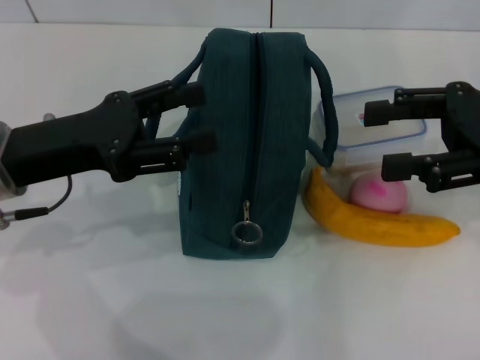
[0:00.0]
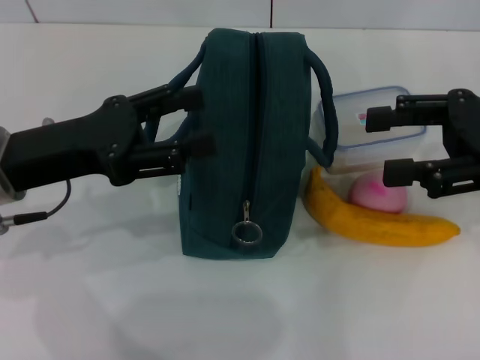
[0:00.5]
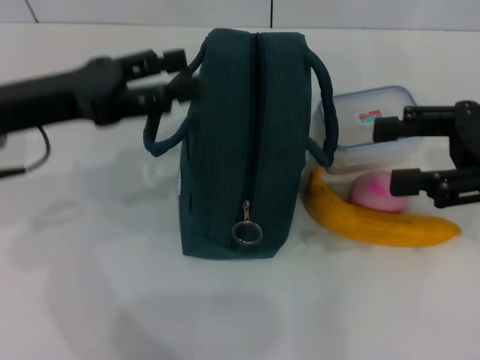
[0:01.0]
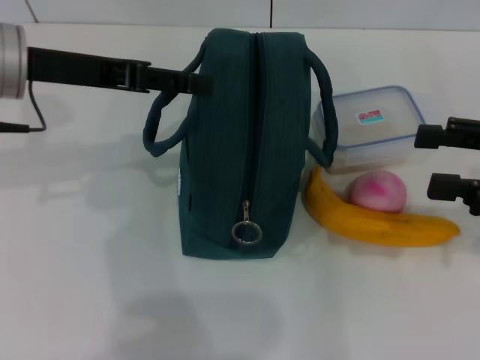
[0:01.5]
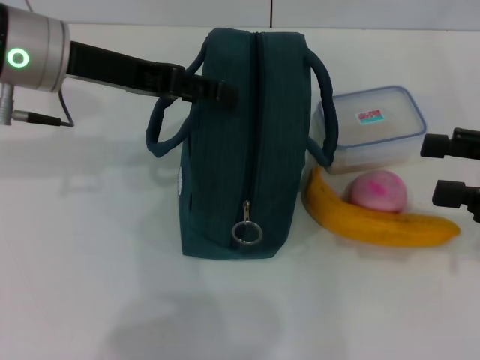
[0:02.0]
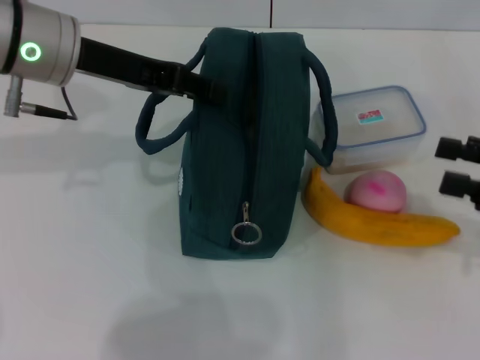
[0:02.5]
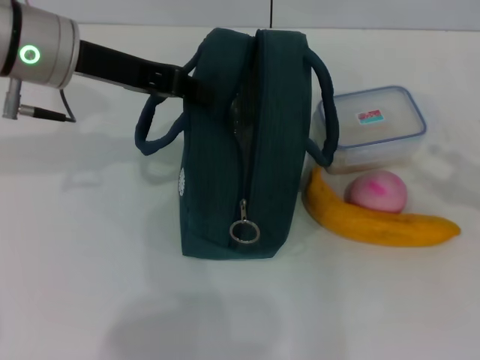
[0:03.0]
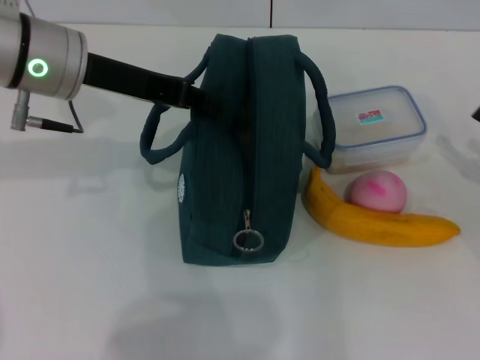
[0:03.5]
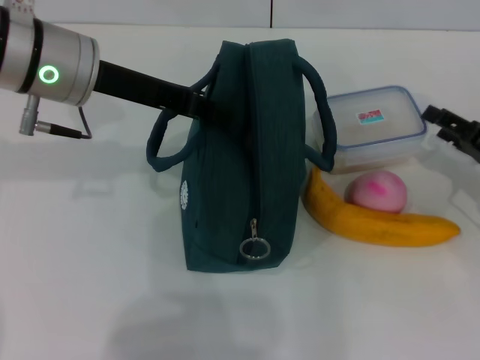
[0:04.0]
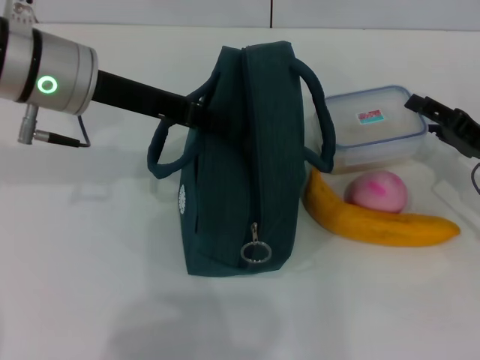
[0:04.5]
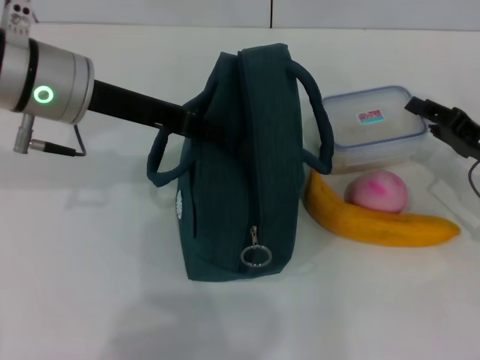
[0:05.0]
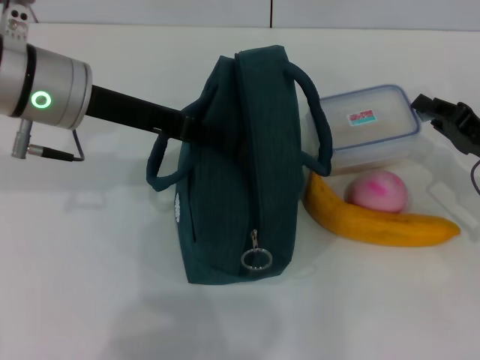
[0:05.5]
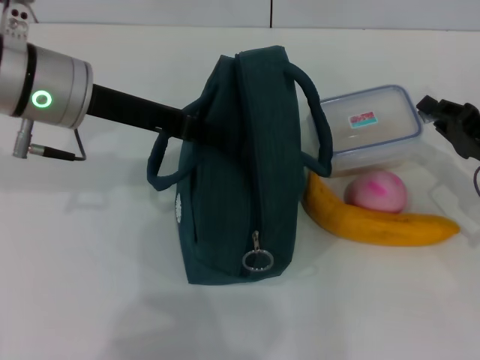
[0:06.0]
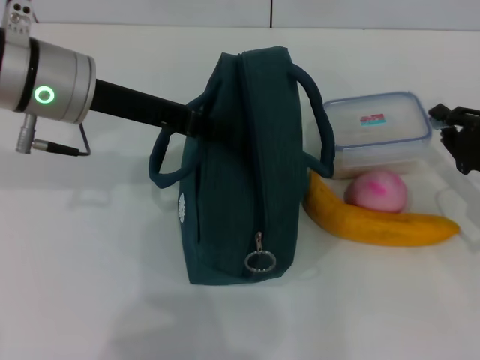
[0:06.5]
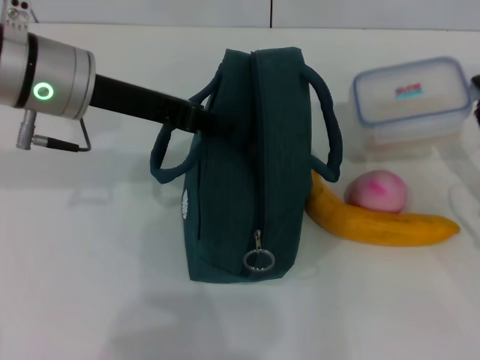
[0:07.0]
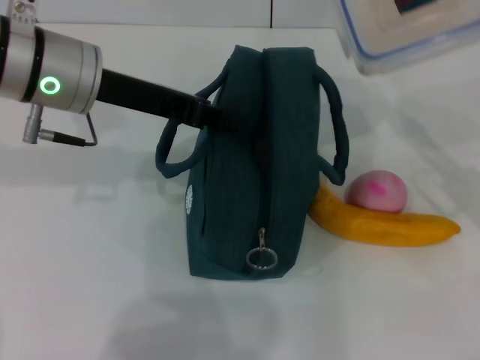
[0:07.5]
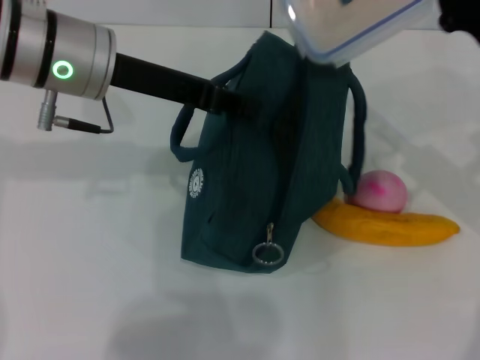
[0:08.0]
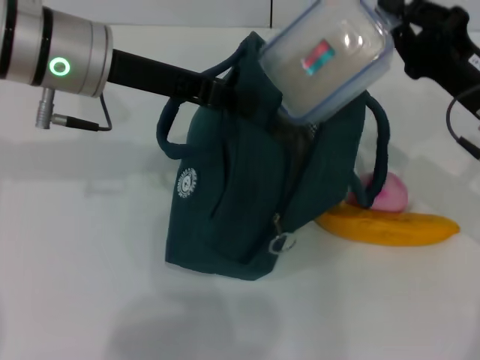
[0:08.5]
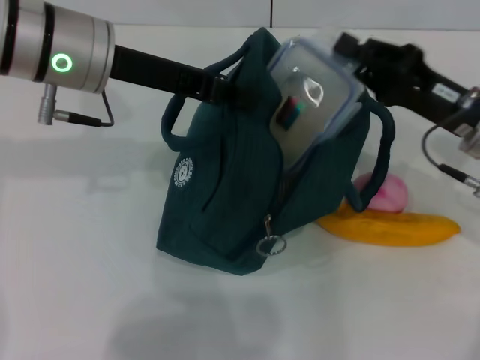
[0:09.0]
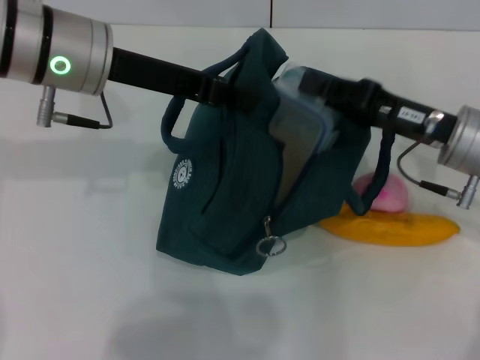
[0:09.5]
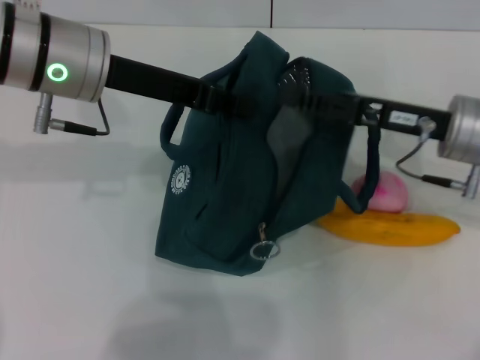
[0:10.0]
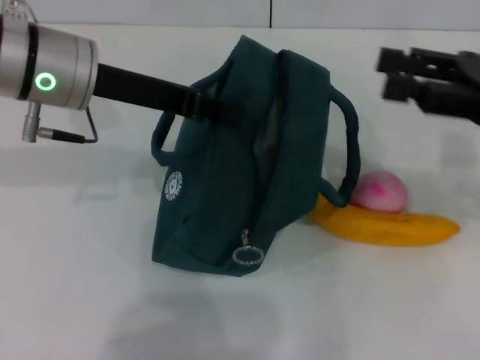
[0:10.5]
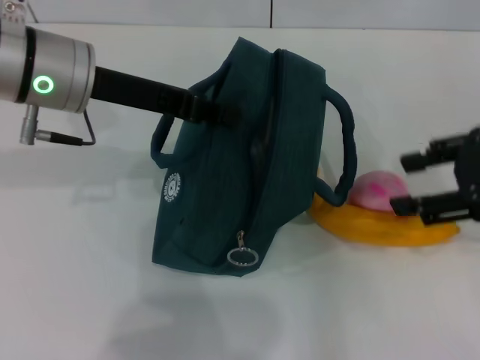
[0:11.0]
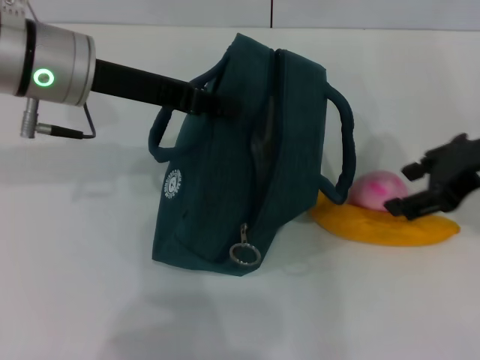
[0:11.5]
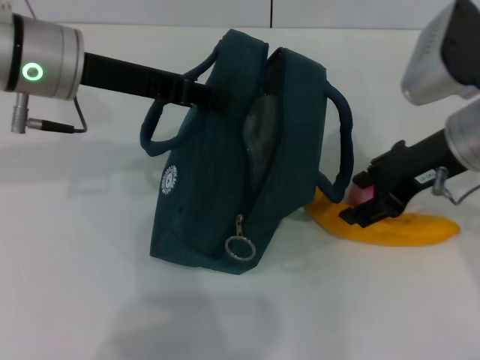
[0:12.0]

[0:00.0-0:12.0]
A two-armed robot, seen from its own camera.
Step, 0:00.0 to 0:03.5: Hold the lunch bag with your left hand.
Step, 0:04.0 to 0:05.5: Pick up the lunch box with your right hand.
Step, 0:06.0 to 0:10.0: Place the lunch box into the lunch bag with your right hand.
0:00.0 to 0:02.0: The left gripper moves forward and upward, about 10 cm. Meanwhile the right gripper ends up some 10 cm from where it was.
0:02.0 to 0:04.0: The right gripper shifts roughly 10 cm downward, while the left gripper closes its fingers.
0:04.0 to 0:06.0: The right gripper closes.
0:06.0 to 0:08.0: The right gripper goes some 10 cm upward.
0:10.0 to 0:12.0: The right gripper is displaced upward by about 5 cm, moves some 10 cm to the right and comes back, and opens.

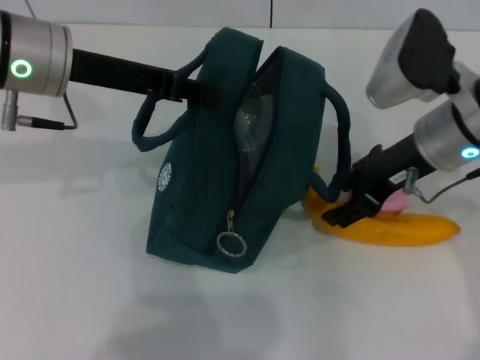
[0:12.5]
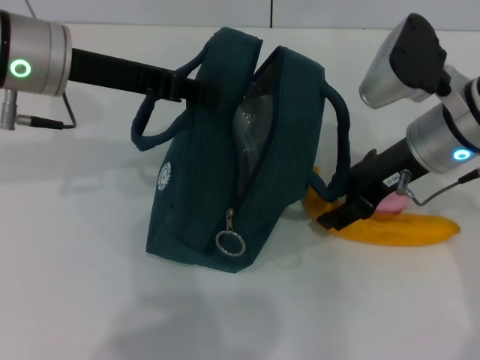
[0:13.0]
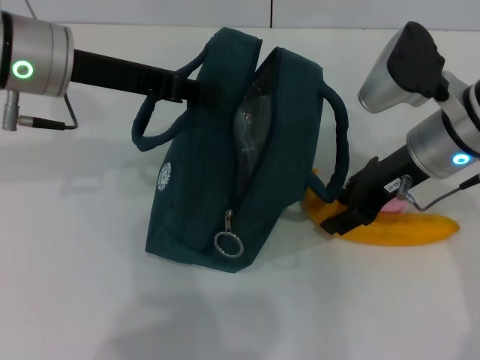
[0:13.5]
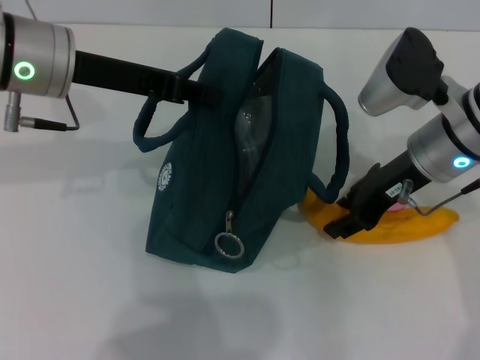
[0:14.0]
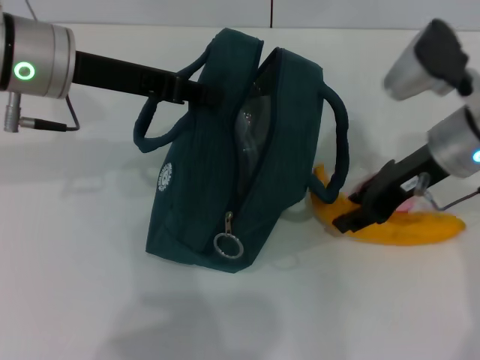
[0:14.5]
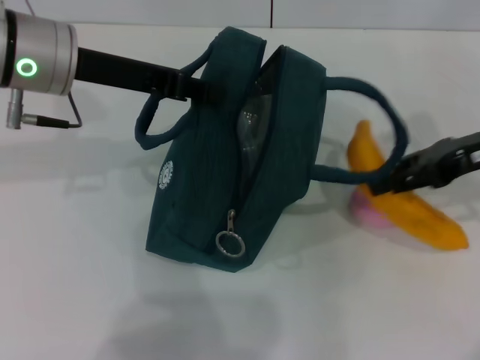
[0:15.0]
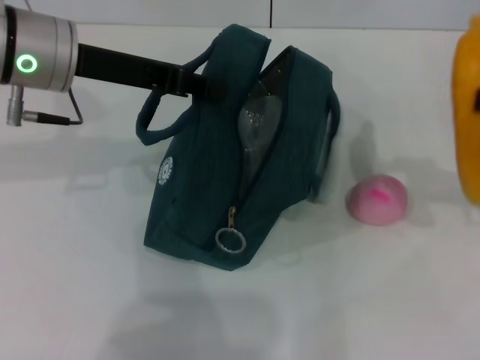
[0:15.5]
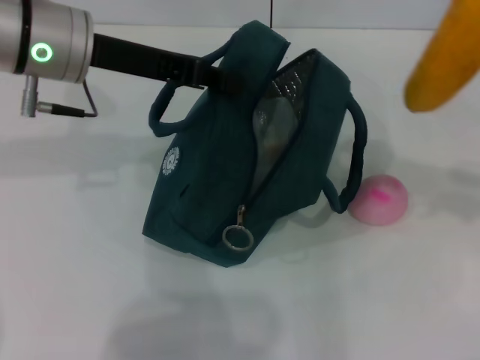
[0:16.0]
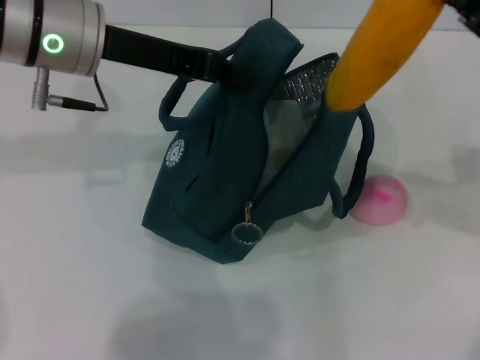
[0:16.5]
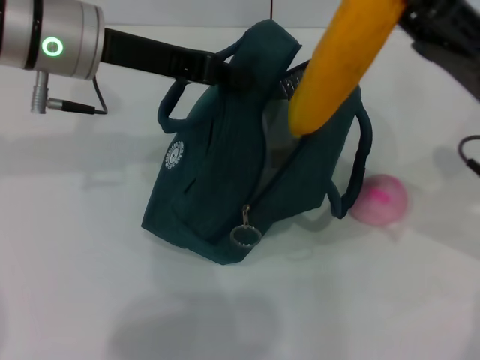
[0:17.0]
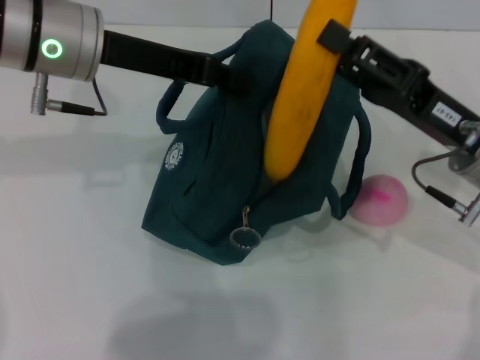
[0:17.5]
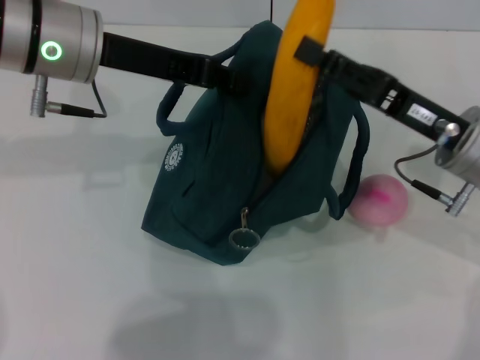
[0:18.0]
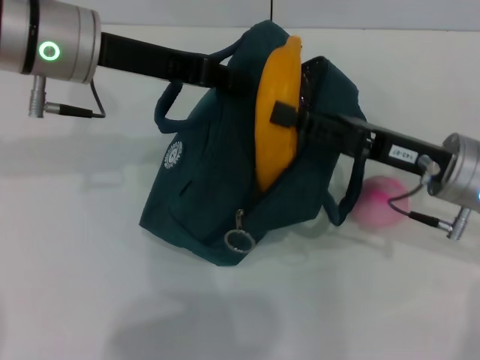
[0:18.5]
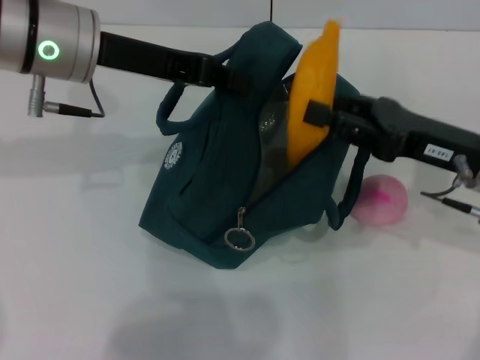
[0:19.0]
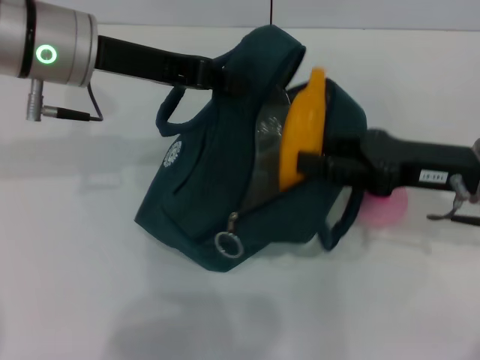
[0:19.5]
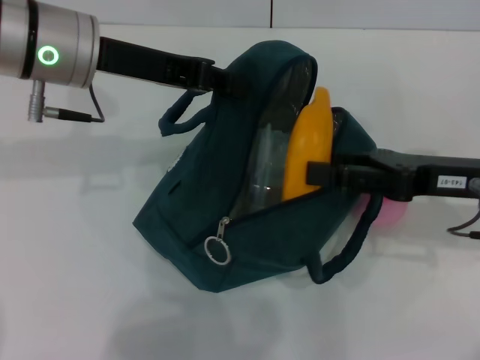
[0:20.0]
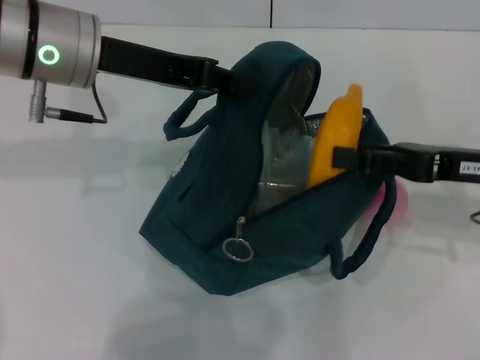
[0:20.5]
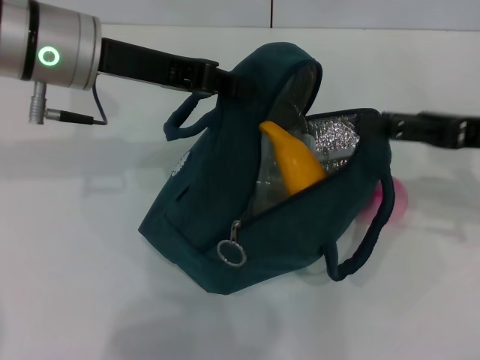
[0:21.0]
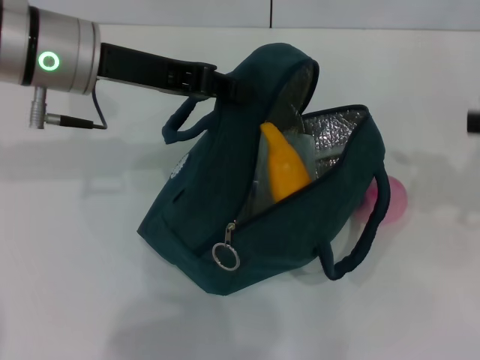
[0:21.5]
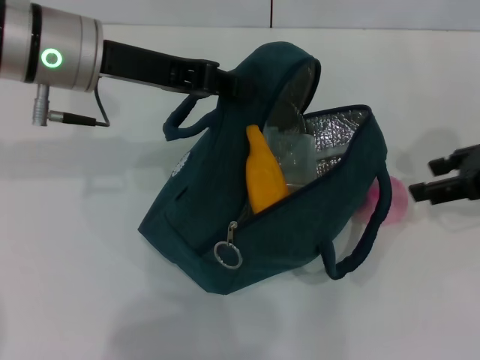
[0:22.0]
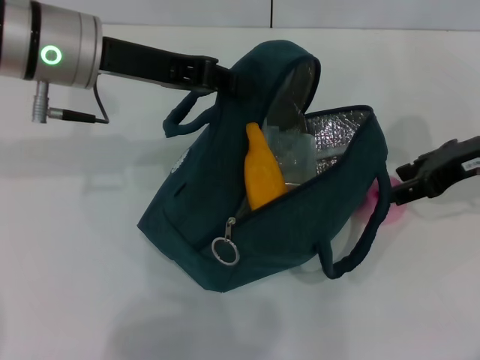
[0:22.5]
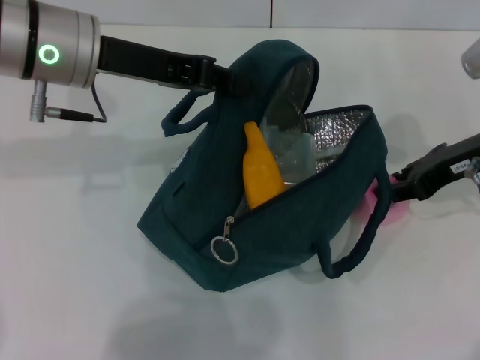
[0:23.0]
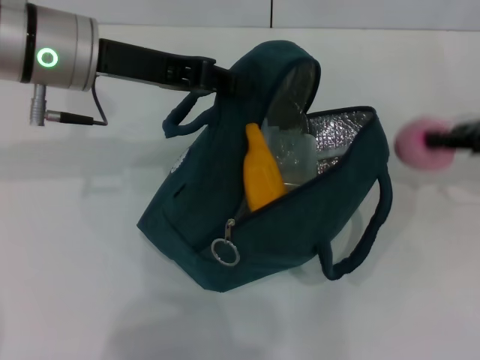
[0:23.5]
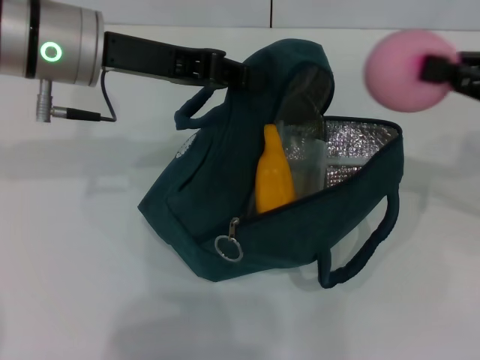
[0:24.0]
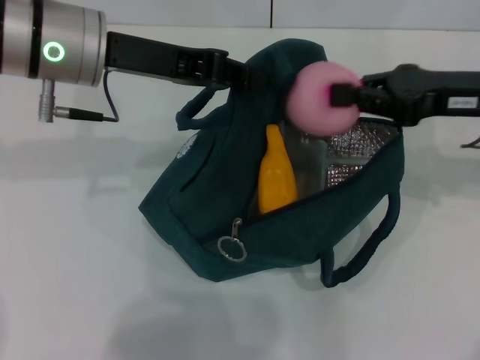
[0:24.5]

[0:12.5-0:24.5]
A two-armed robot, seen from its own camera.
Step, 0:14.5 to 0:20.5: Put the banana into the lunch bag with your right hand.
Step, 0:21.0 to 0:22.5: Grab the peach with your right hand.
0:12.5 to 0:14.5: There are only small adjustments of the grippers.
0:14.5 to 0:16.5: The right gripper heads to the right and backward, covering some 10 cm.
0:16.5 to 0:18.5: The right gripper is displaced downward and to the left by approximately 10 cm.
0:18.5 to 0:20.5: The right gripper goes roughly 5 cm to the right.
0:20.5 to 0:22.5: The right gripper goes upward and returns, some 10 cm each way.
0:22.5 to 0:24.5: The right gripper goes to the right and returns, roughly 5 cm each way, and closes up.

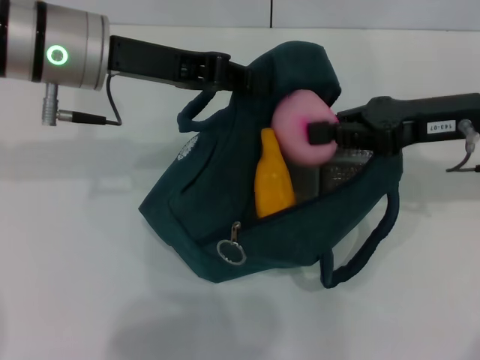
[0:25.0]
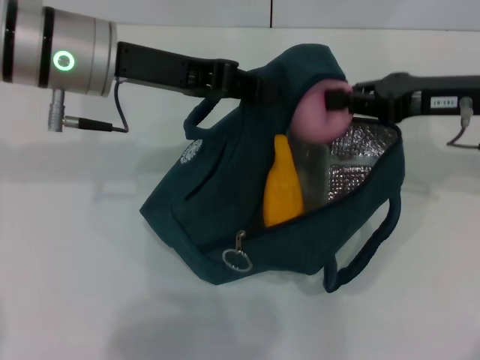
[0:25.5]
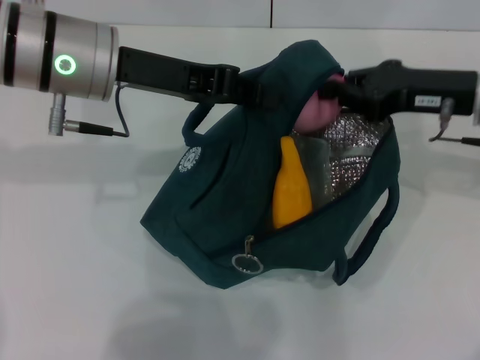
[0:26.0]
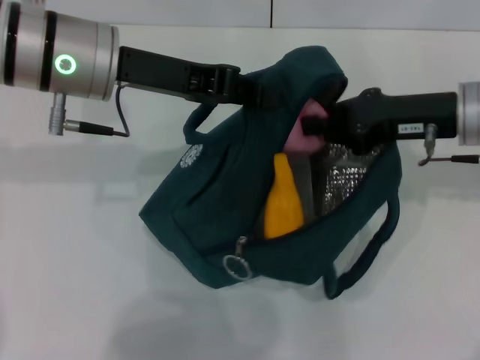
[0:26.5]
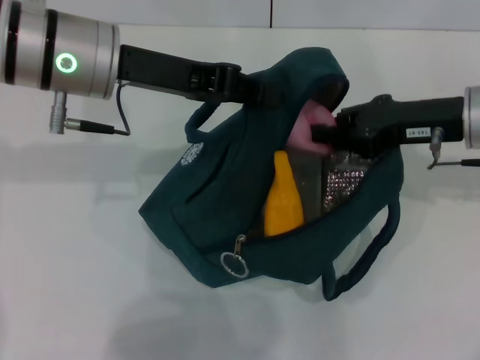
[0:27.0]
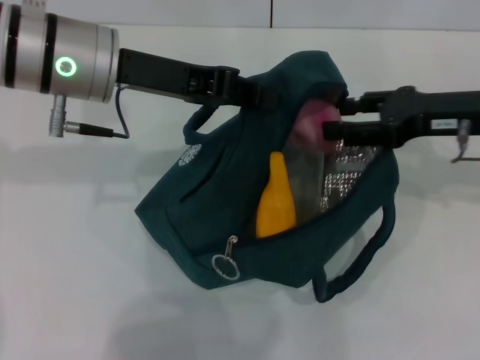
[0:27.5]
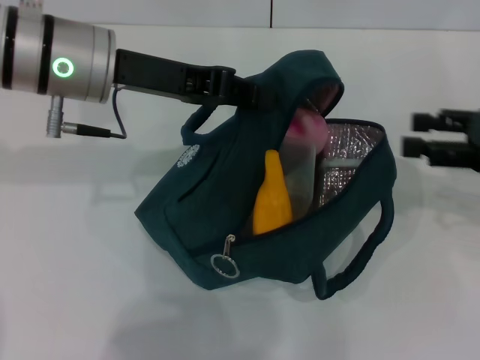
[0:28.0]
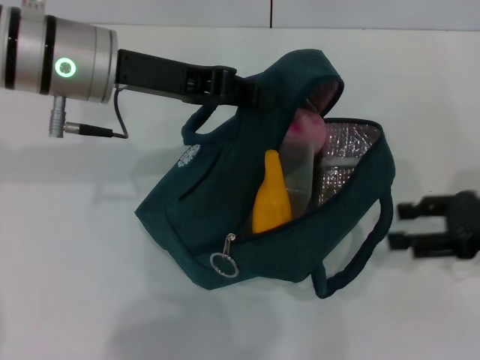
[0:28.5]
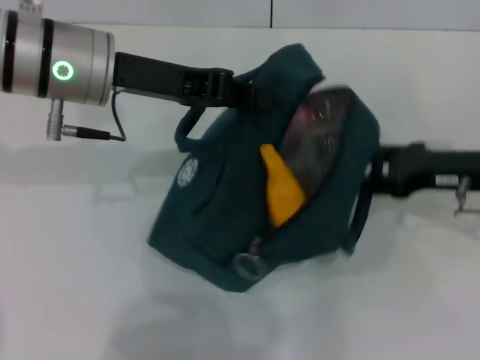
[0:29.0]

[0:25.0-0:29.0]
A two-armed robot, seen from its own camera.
0:25.0 to 0:27.0: The grippers make only small movements.
0:27.0 to 0:29.0: The right gripper opens its fingers.
